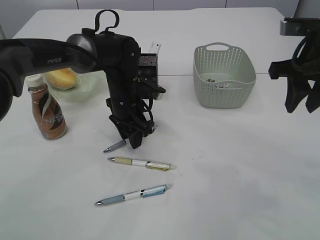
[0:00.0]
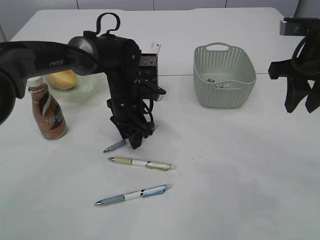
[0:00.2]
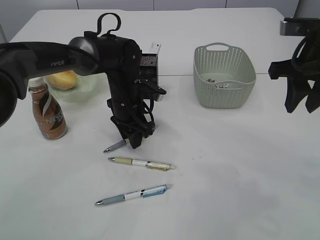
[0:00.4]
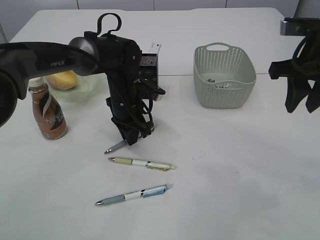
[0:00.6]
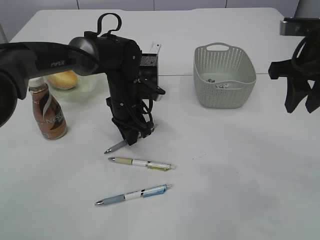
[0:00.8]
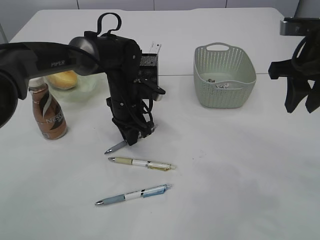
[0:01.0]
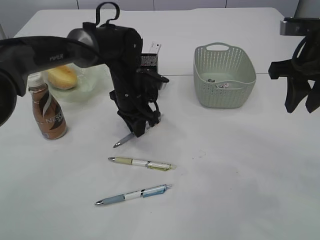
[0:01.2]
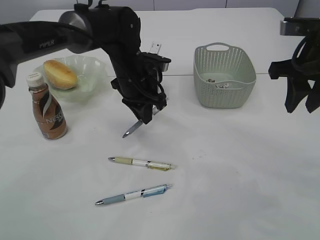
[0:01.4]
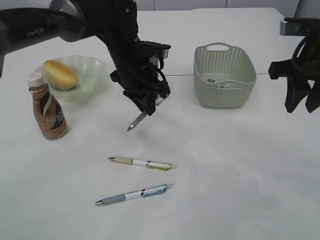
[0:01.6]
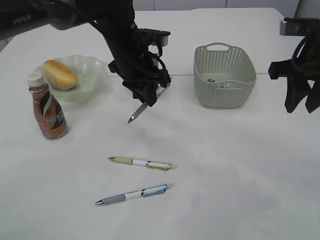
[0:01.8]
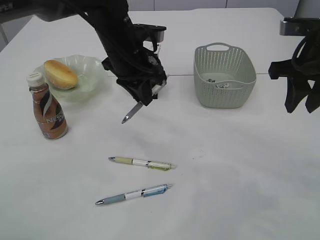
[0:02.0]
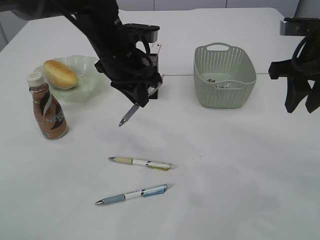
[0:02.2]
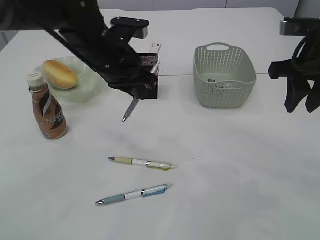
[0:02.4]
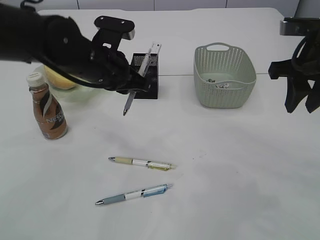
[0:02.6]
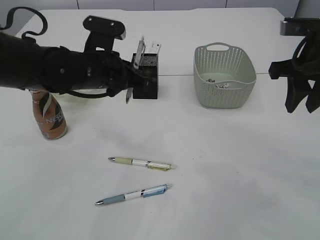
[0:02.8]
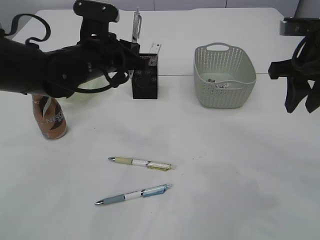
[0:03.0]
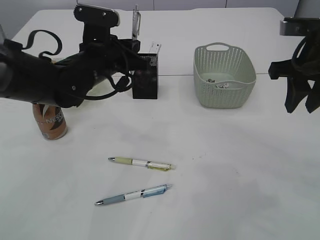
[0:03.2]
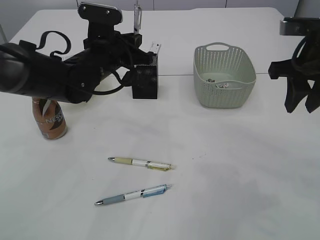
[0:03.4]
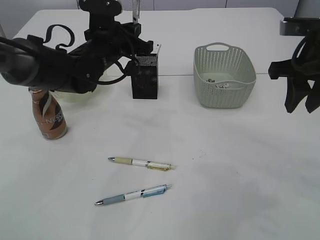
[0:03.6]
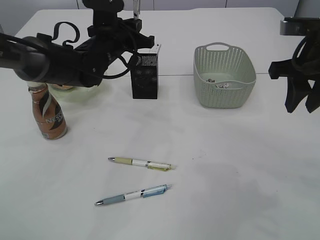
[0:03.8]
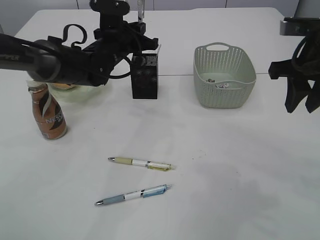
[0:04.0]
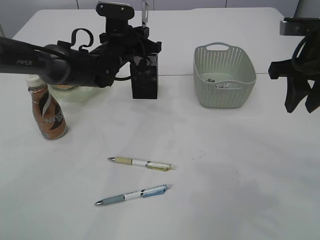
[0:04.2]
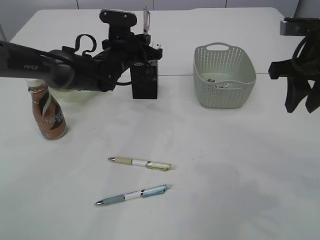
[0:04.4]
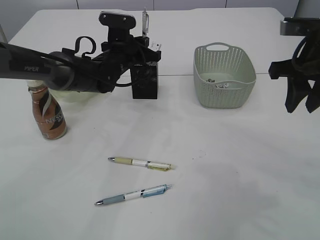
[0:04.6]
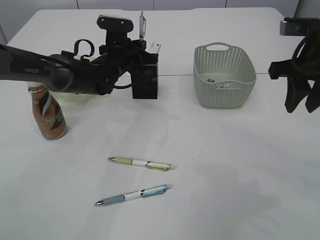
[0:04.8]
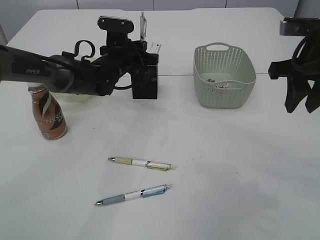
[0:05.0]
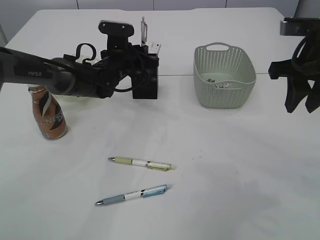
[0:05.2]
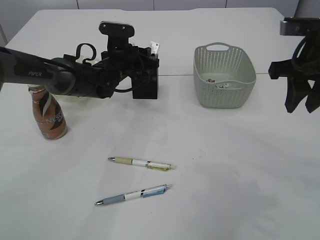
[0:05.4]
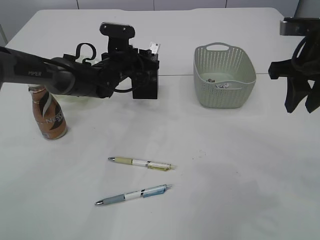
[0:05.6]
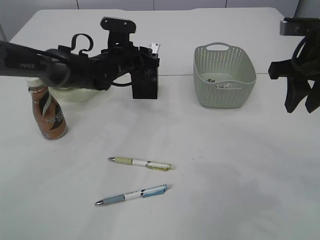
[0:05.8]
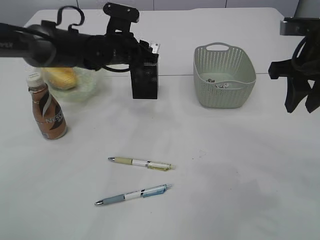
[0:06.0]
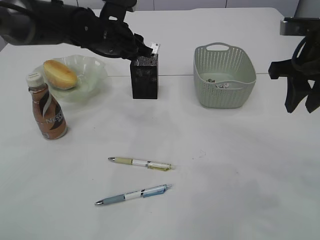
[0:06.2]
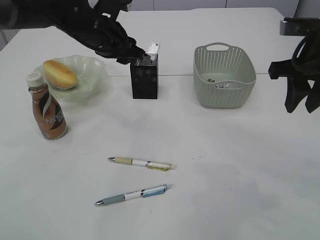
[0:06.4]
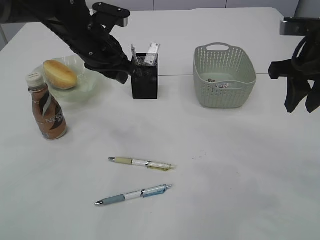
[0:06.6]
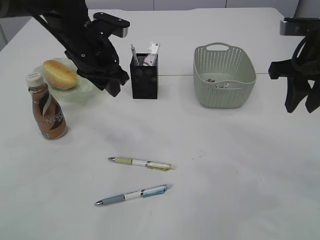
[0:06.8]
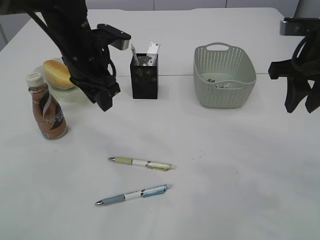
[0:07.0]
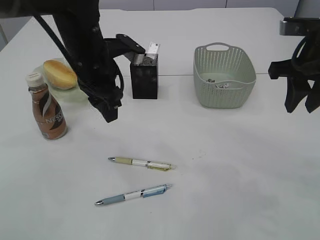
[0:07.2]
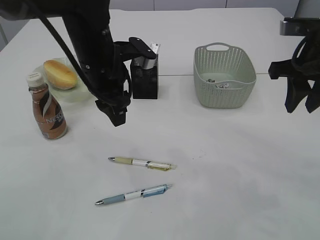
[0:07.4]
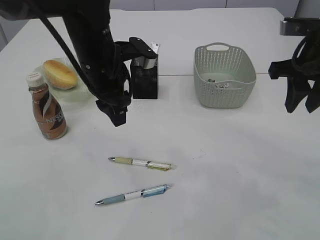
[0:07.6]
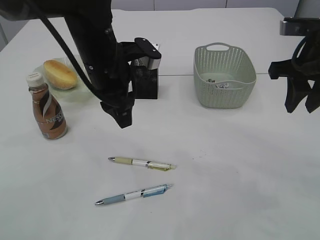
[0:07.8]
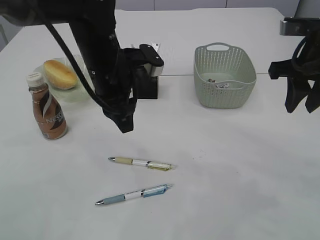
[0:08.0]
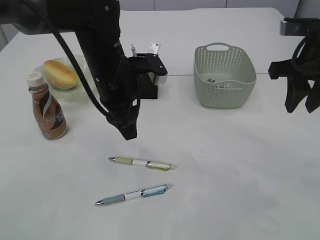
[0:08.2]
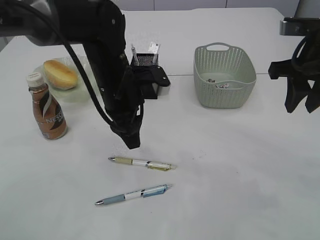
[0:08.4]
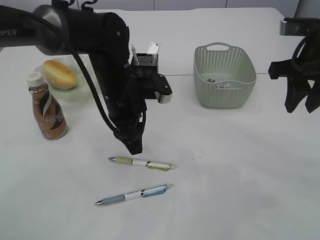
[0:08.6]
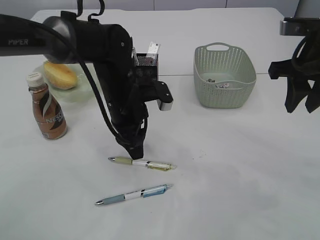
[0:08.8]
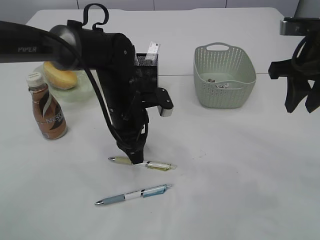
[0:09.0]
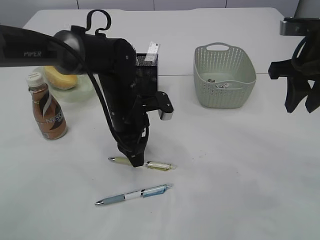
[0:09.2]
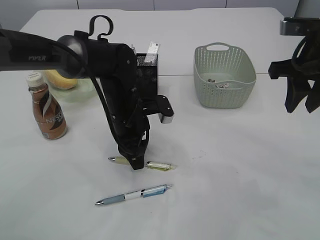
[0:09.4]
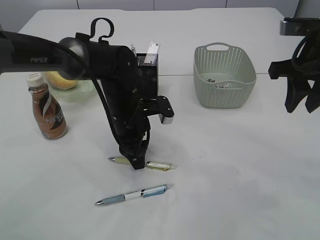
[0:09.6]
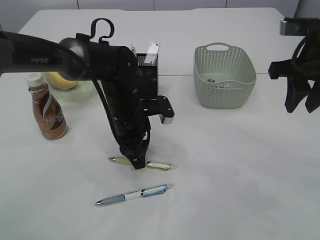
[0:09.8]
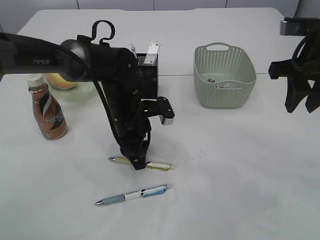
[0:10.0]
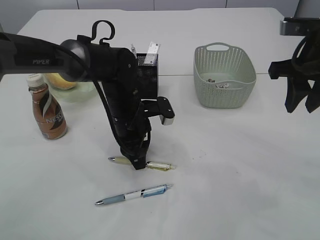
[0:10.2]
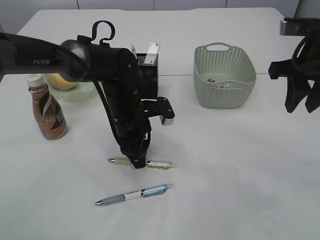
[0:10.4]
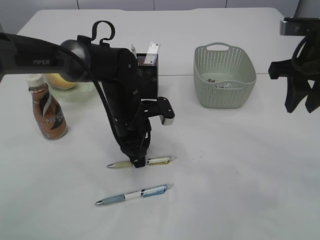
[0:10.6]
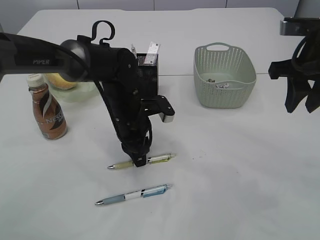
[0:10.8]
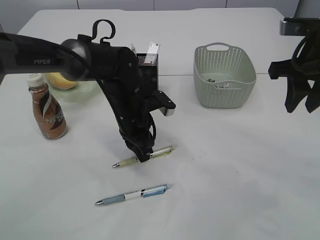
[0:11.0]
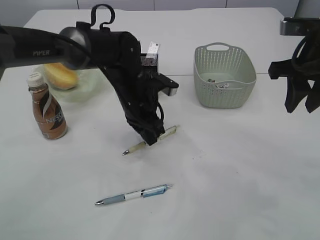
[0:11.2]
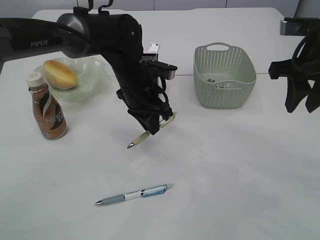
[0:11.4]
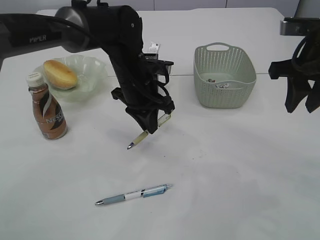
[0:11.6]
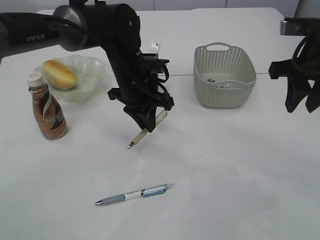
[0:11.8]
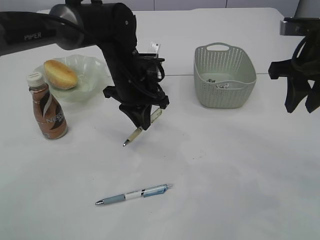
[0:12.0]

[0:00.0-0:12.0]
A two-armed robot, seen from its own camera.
Step, 0:00.0 to 0:02.2: Pick up the pen with left arm.
Step, 0:02.4 to 0:06.6: Place the pen into the pen holder.
Step, 0:06.8 to 0:11.4: Pick up the pen with left arm.
0:00.0 to 0:01.6: The left gripper travels upward by roughly 5 cm, and closes its fingers.
0:01.6 to 0:03.0: The left gripper moves to the left, approximately 5 cm.
0:03.0 to 0:04.4: The left gripper shifts some 10 cm forward and downward.
0:04.4 to 0:06.0: The left gripper opens its fingers.
0:06.0 to 0:07.6: The left gripper shifts some 15 cm backward and upward.
0:07.6 to 0:09.0: The left gripper is displaced downward by about 10 cm.
0:09.0 to 0:10.4: There are only small adjustments of the grippers.
0:10.4 to 0:12.0: The left gripper moves upward, approximately 5 cm.

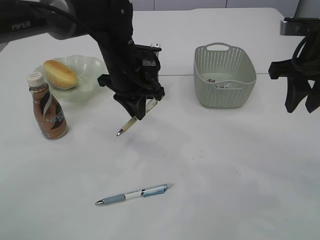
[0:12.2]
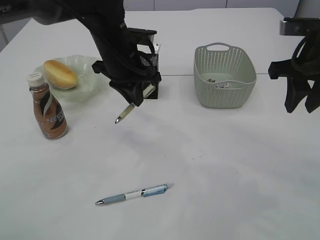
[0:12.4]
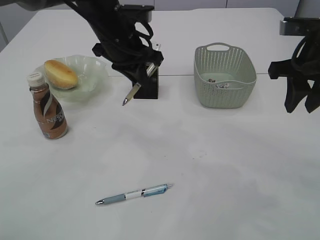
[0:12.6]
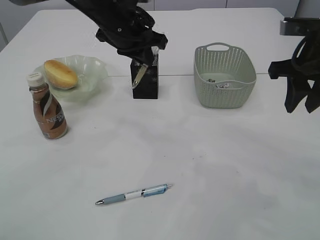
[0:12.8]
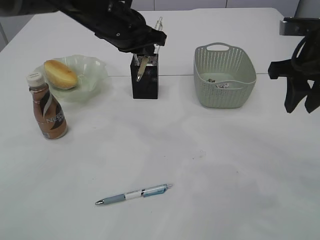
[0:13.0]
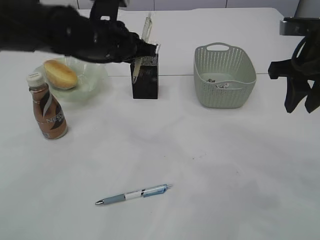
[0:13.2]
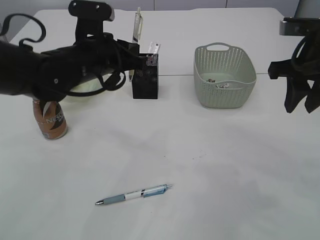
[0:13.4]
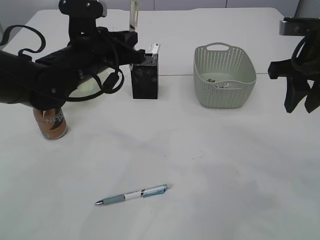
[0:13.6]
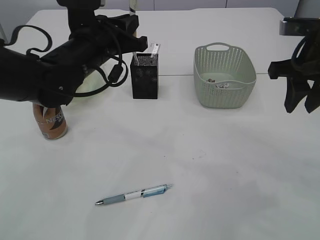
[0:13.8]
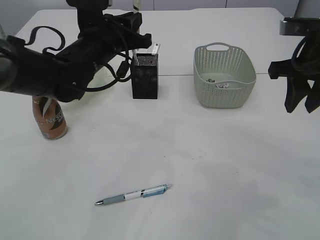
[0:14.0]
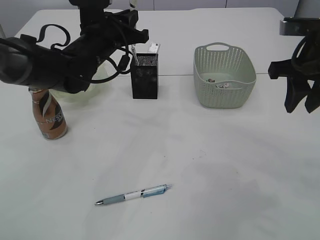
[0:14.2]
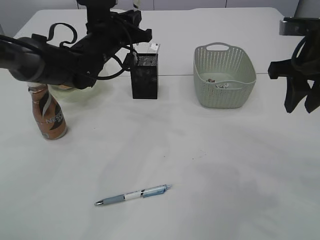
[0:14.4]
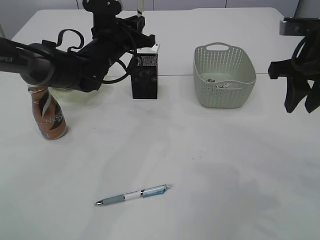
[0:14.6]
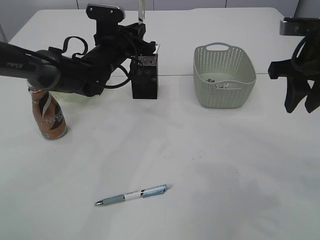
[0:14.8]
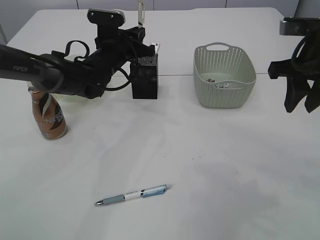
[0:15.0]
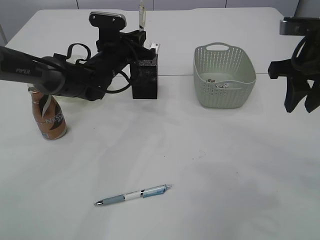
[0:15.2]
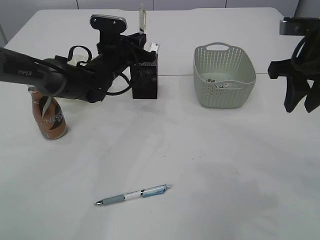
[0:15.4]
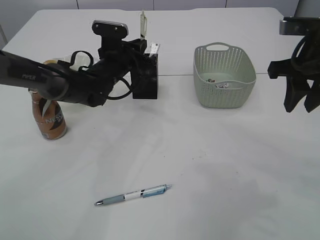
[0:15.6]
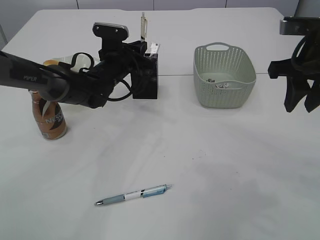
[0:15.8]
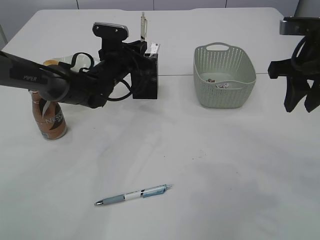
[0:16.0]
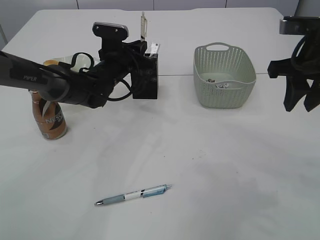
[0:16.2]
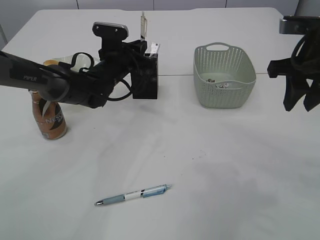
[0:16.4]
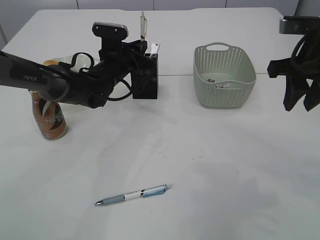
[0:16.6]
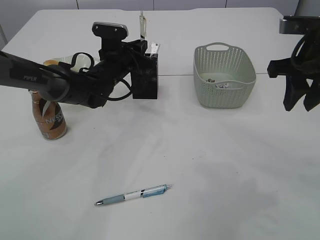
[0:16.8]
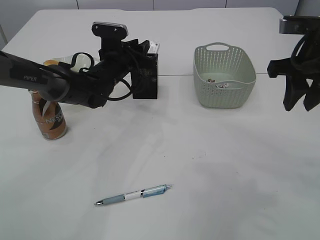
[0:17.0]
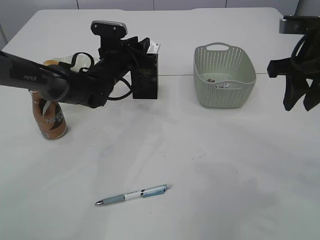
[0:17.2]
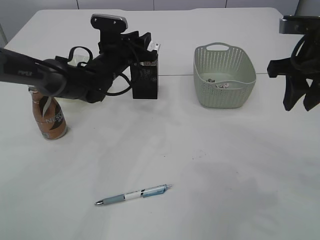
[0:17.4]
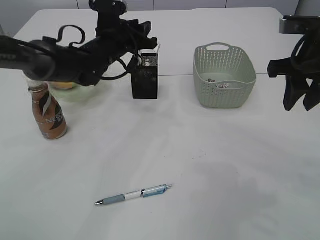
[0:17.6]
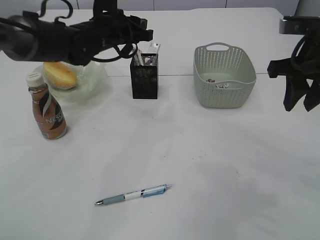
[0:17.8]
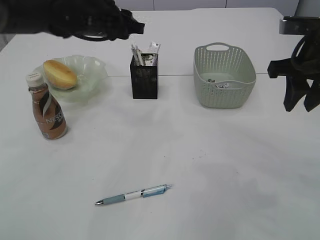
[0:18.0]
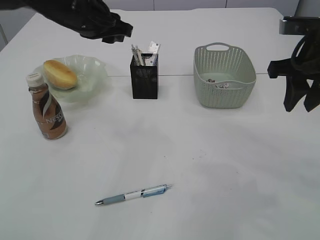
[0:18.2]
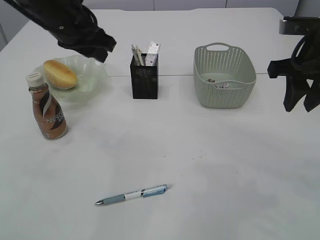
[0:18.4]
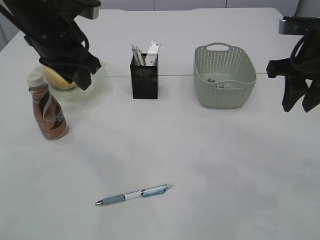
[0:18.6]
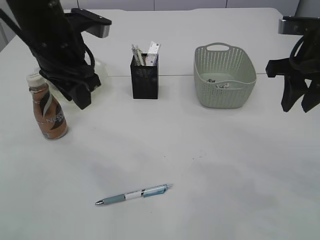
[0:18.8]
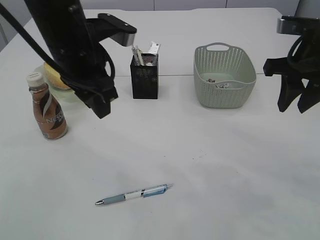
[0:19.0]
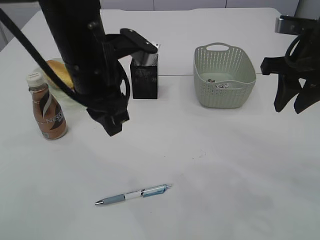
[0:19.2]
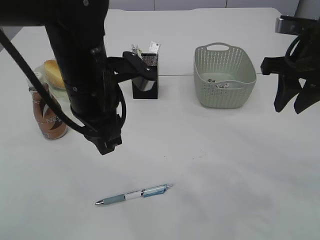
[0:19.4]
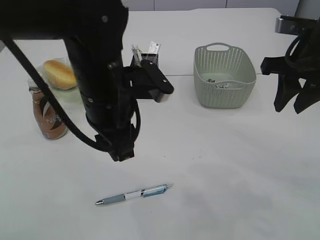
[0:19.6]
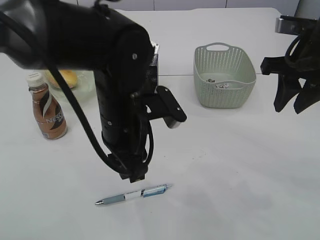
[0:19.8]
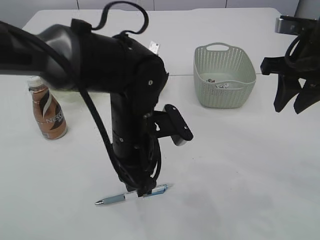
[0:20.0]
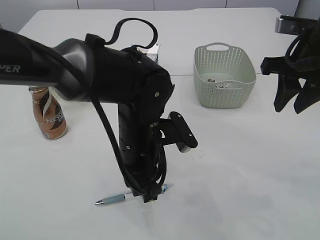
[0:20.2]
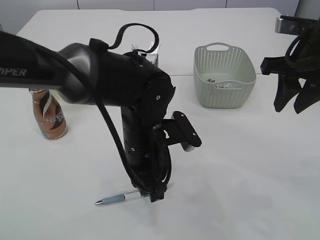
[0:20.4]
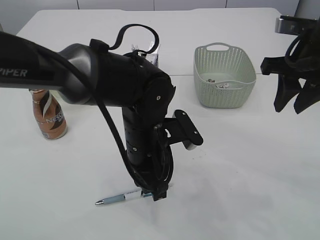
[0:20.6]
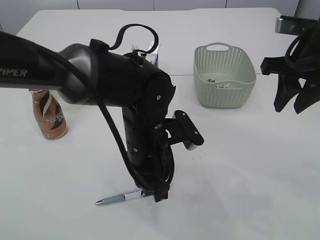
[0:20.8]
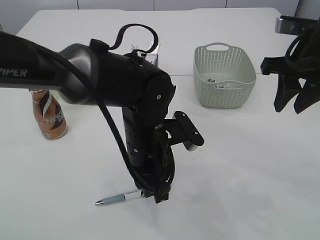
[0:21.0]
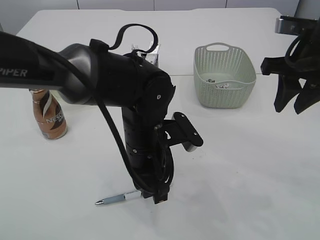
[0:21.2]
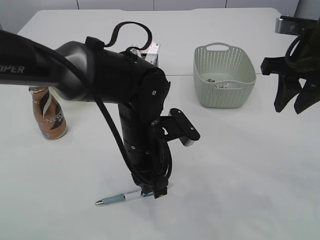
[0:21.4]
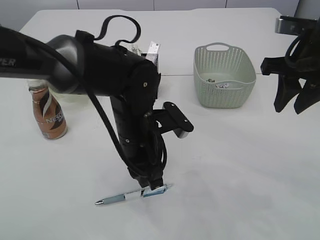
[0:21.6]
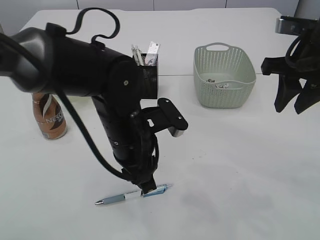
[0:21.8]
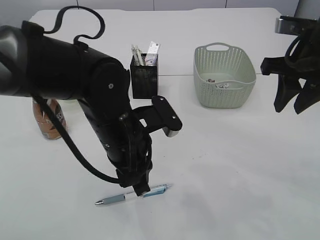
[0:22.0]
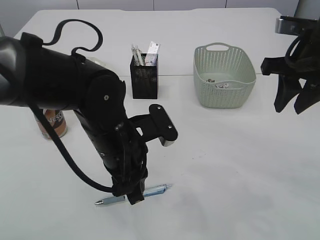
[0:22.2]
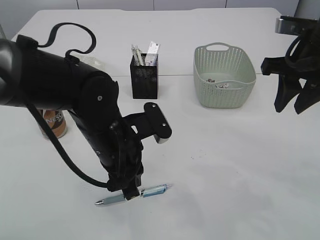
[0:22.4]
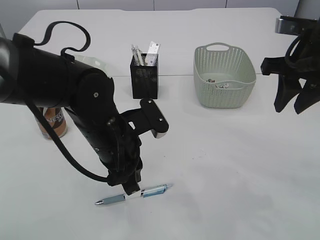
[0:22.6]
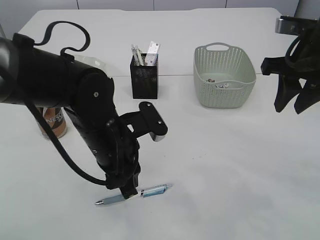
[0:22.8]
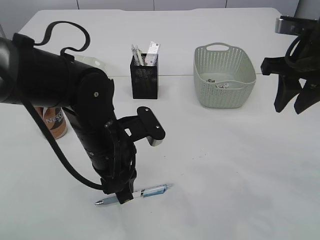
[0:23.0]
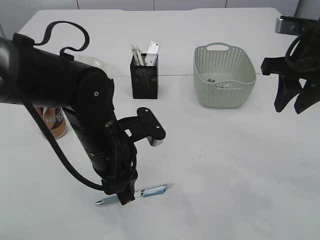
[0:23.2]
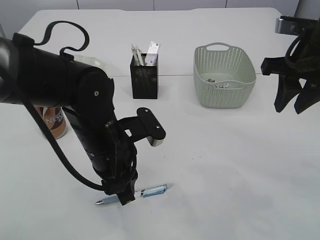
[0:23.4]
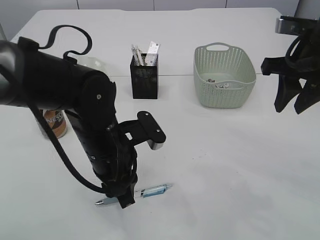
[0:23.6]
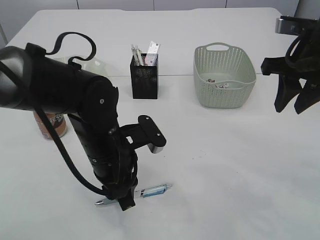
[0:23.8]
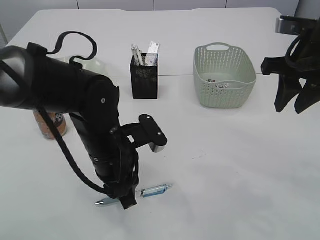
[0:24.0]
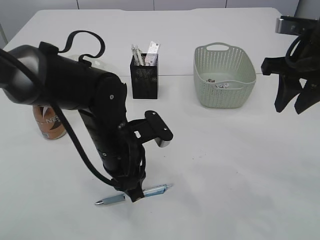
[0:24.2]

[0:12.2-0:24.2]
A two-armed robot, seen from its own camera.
Step, 0:12.2 to 0:17.6: Place the pen into the pen holder.
0:12.2 to 0:13.8: The left gripper moves to the left, approximately 5 cm.
0:13.8 to 0:15.2: The left gripper heads forward and downward, covering roughly 15 cm.
0:15.2 to 0:16.6: The grippers stay close to where they were, moving slightly.
0:16.6 to 0:18.2: The left gripper is displaced upward and backward by about 15 cm, and opens its fingers.
0:18.2 to 0:19.8: The left gripper heads backward, to the right and downward, covering about 20 cm.
0:19.8 to 0:21.2: The left gripper moves downward, about 5 cm.
0:21.2 to 0:22.6: The left gripper is displaced to the left by some 5 cm.
0:22.6 to 0:24.2: The grippers stay close to where they were, moving slightly.
